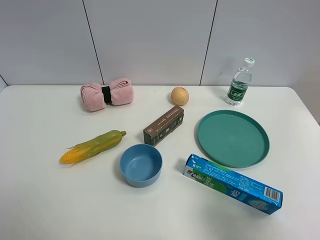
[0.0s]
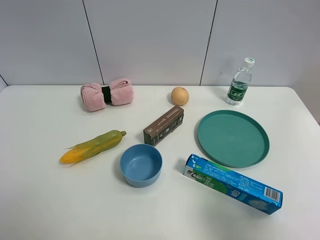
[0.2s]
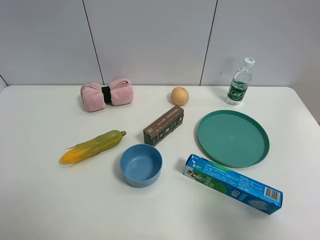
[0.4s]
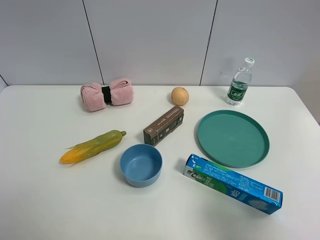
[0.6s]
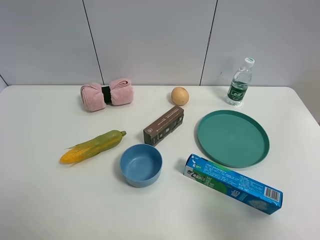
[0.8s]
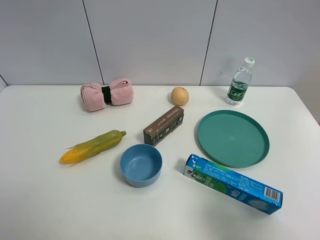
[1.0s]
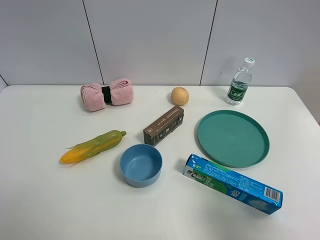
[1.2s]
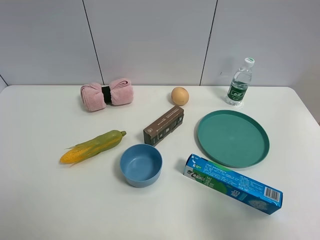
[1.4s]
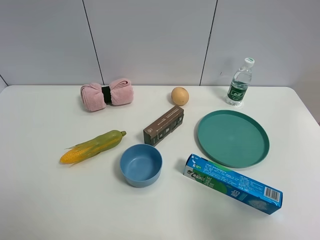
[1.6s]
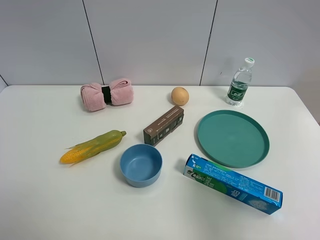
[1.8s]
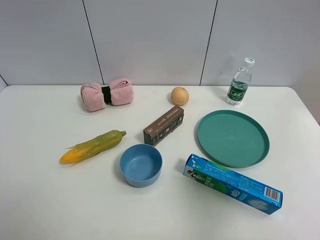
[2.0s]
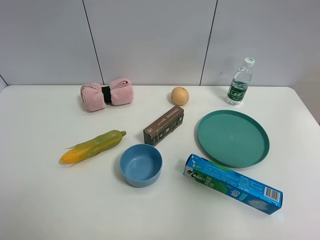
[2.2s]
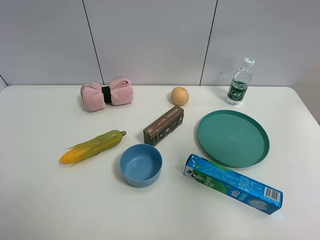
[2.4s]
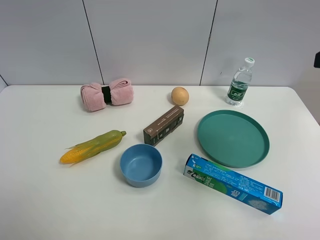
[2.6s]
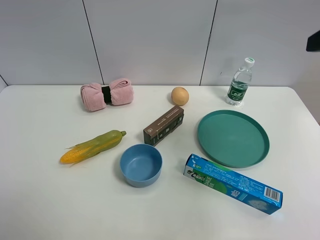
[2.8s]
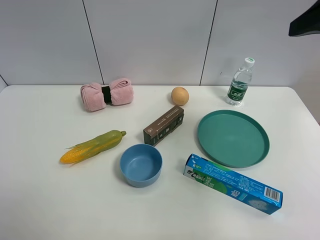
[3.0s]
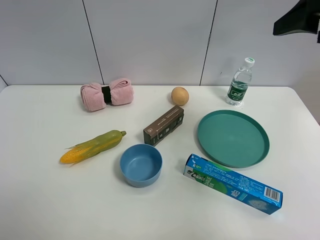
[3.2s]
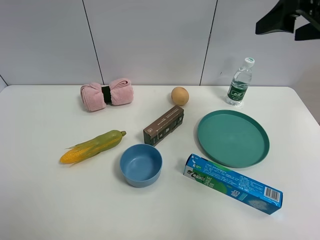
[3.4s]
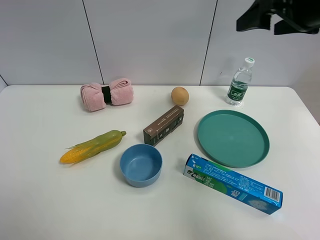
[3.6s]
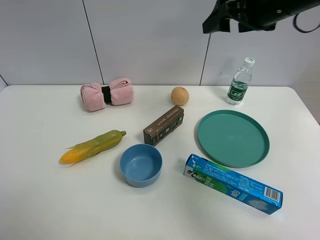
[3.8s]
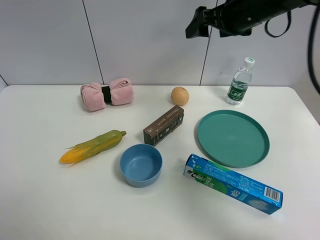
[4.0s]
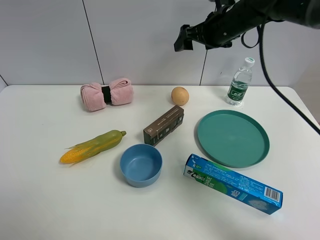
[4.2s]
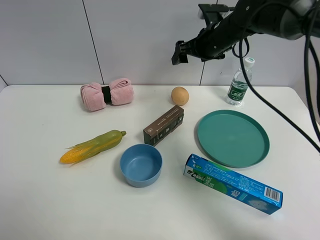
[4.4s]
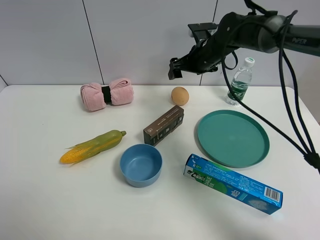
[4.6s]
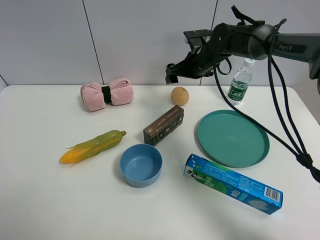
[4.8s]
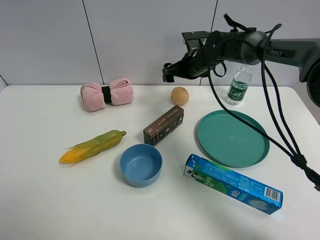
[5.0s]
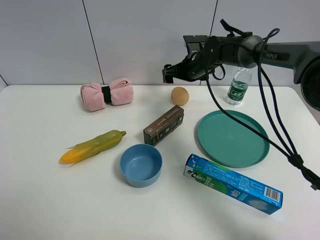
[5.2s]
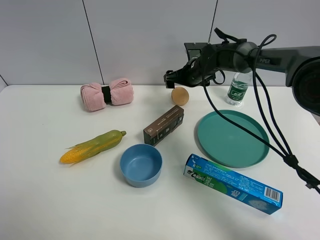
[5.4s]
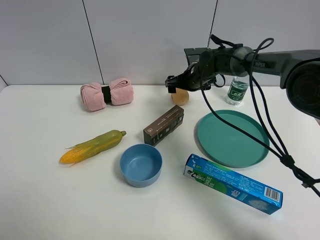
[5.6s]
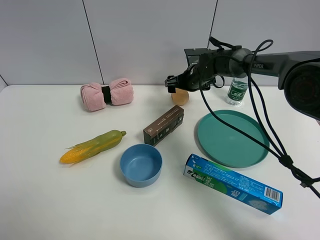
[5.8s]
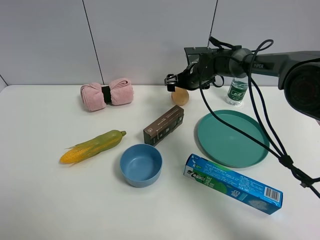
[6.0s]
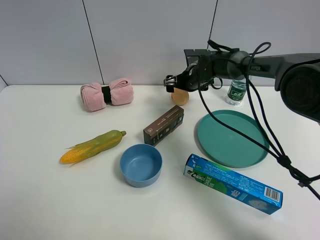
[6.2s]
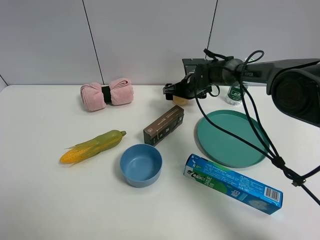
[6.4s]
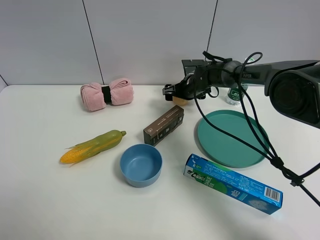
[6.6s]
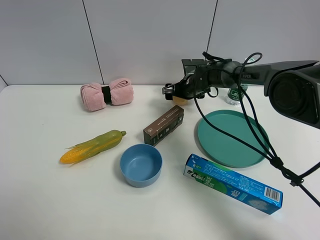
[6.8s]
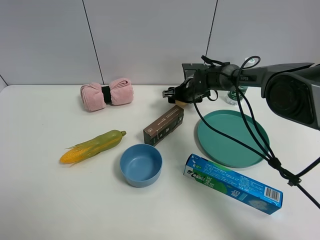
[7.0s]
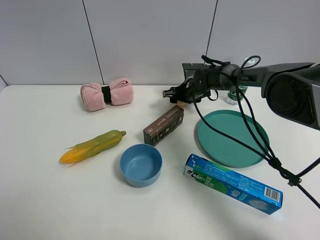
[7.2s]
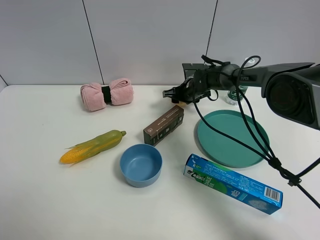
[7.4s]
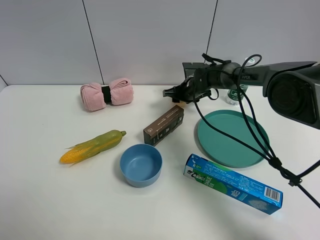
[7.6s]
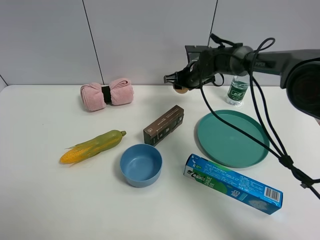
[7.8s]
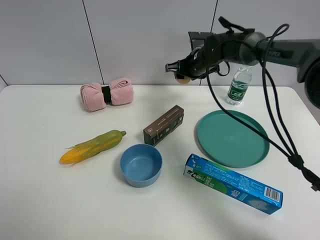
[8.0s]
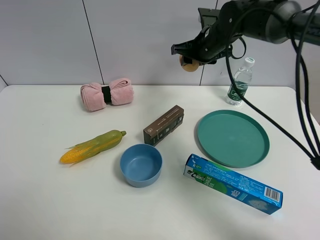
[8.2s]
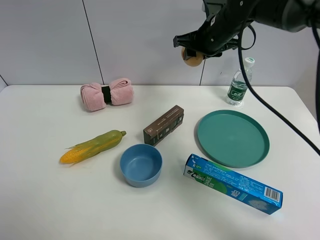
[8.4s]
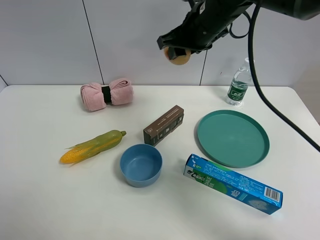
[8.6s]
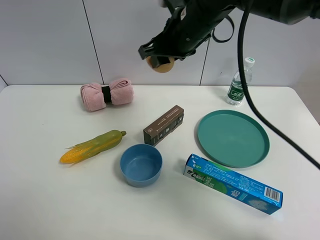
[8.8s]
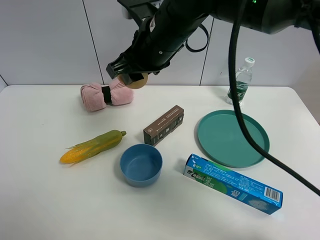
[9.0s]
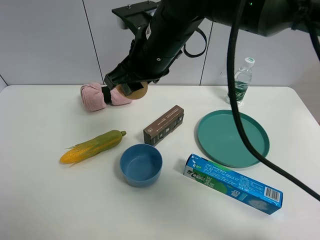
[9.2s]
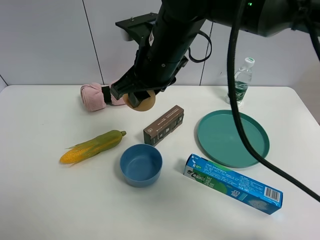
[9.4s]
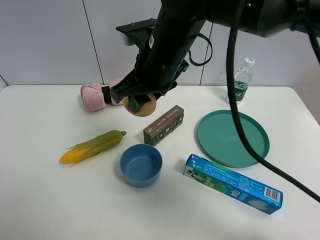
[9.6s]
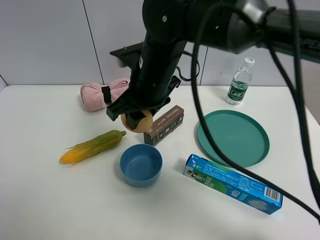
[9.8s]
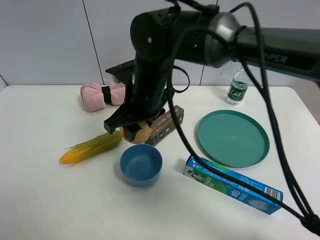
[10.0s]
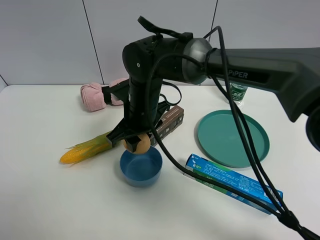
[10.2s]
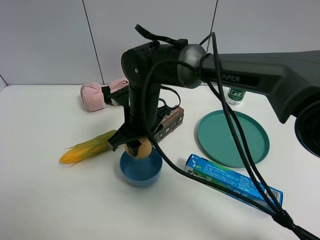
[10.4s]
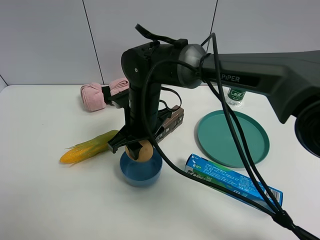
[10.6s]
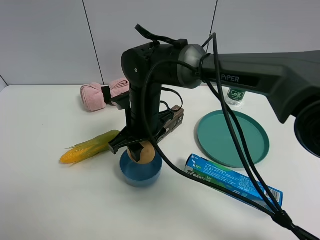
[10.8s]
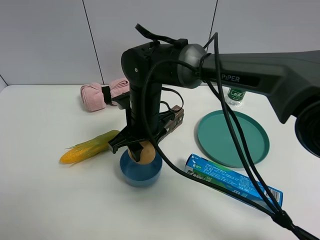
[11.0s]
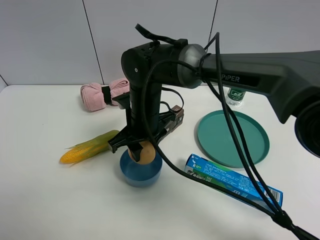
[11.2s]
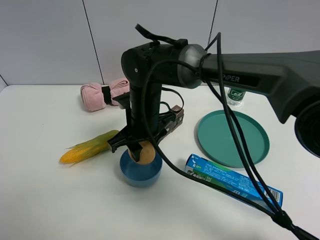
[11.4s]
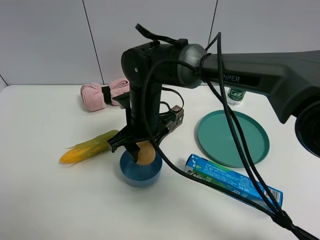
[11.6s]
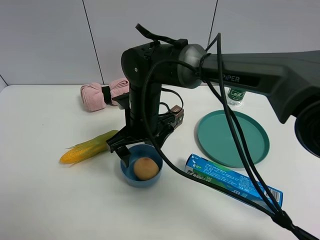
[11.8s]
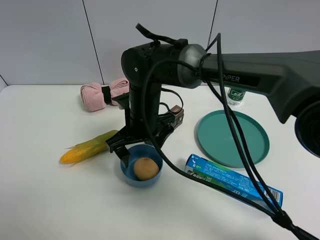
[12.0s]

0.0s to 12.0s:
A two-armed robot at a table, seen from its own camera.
Task of the whole recording: the gripper move the object.
Step, 0.0s to 7.4s: Grasp the egg yolk pastry with the right gripper.
Step, 7.6s to 11.8s: Place the egg yolk pastry into the blue bowl with the right gripper.
1.6s to 3.0s: The right gripper goes about 25 cm forward and upward.
3.0s to 4.4s: The right gripper heads forward, downward and to the left, covering roughly 30 cm.
4.4s to 6.0s: The right gripper goes roughly 10 cm downward.
6.0s to 7.6s: The right gripper closes its fingers.
7.6s to 9.0s: The right gripper is displaced upward, backward and to the left by about 30 cm.
9.0s to 10.4s: The right gripper travels downward by roughly 15 cm.
10.4s to 12.0s: The right gripper opens its fingers.

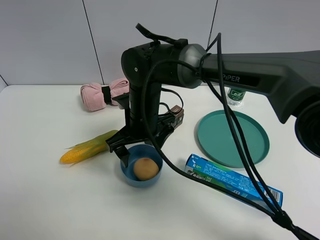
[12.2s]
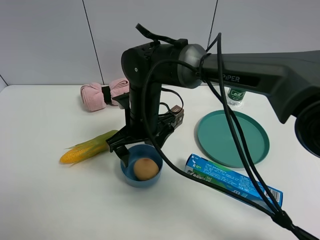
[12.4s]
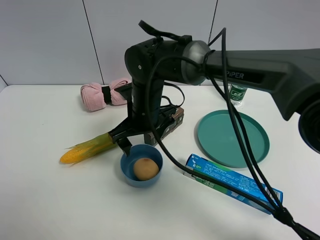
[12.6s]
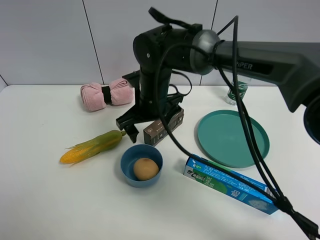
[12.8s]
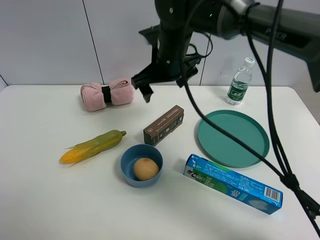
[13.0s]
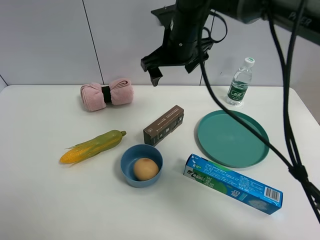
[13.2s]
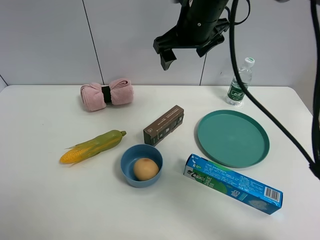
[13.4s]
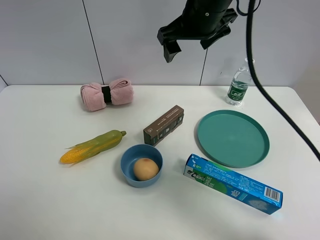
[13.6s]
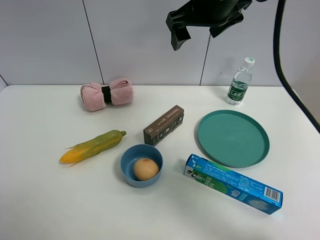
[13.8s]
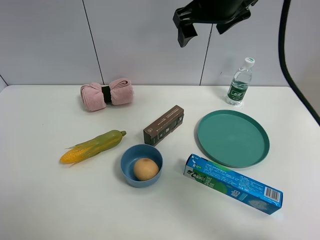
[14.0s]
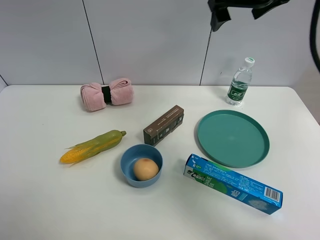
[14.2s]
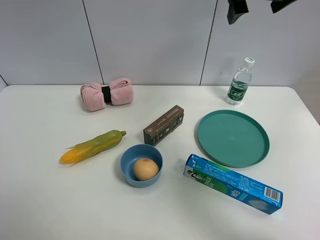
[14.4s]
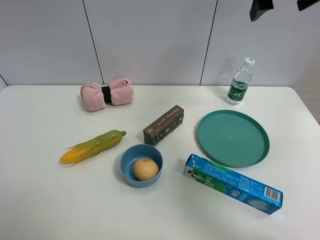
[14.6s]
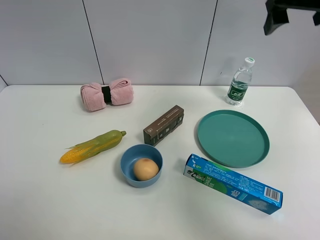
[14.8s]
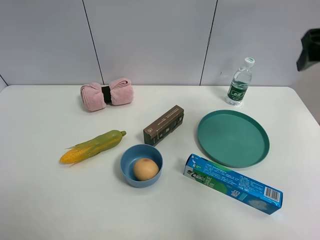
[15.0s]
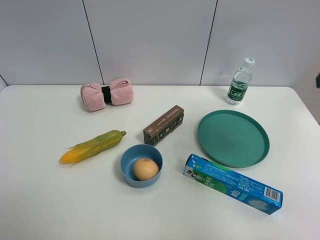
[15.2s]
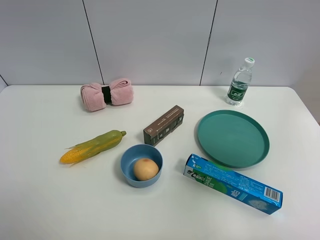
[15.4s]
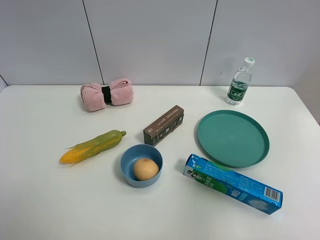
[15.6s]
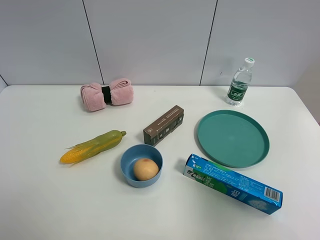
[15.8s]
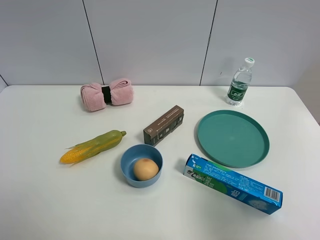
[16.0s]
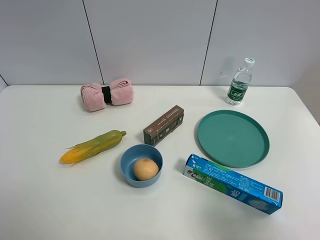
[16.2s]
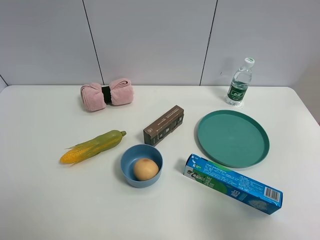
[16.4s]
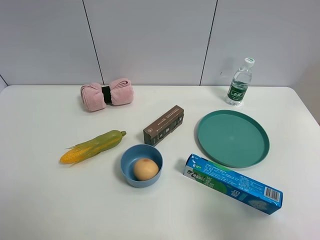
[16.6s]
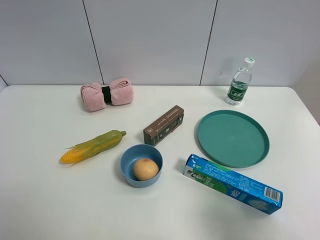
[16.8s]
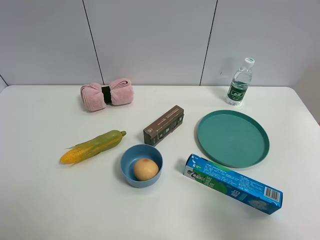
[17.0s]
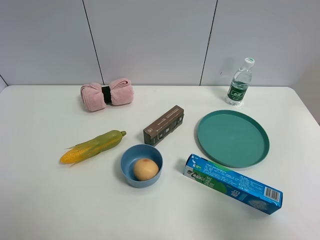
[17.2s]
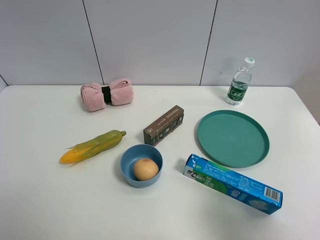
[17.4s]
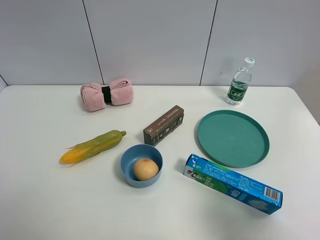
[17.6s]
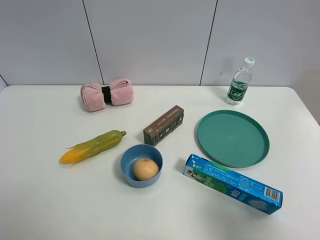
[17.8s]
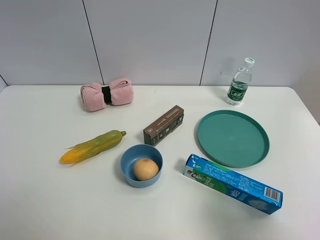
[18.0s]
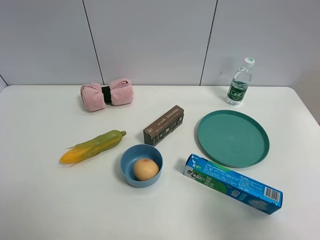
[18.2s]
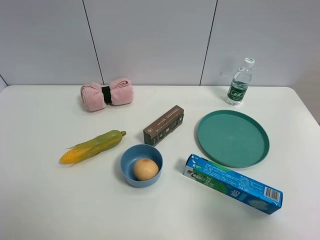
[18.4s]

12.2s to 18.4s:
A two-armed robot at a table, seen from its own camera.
Task of the whole recording: the gripper move the object.
12.2s to 13.8s: The right gripper goes roughly 25 cm upward and to the right.
13.8s to 15.4s: The right gripper shifts about 30 cm backward and to the right.
15.4s to 16.8s: The right gripper is displaced backward and downward by some 15 cm.
16.8s to 18.4s: Both grippers stay put.

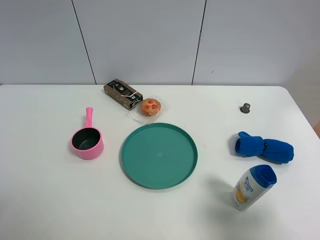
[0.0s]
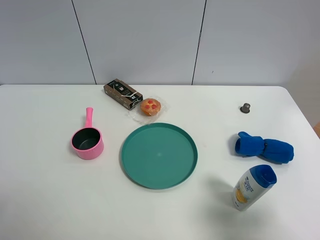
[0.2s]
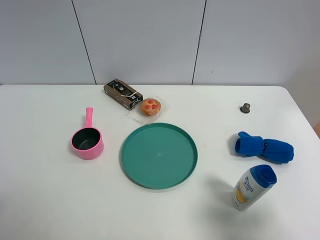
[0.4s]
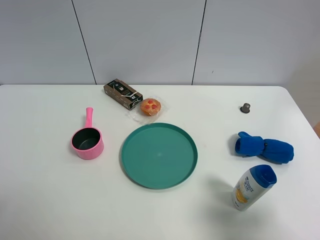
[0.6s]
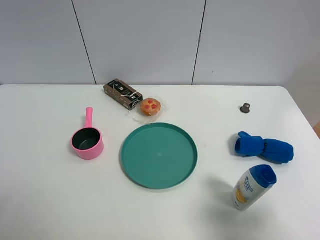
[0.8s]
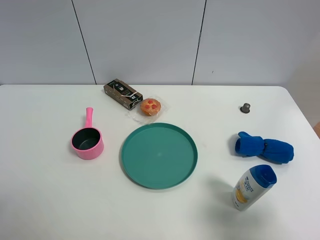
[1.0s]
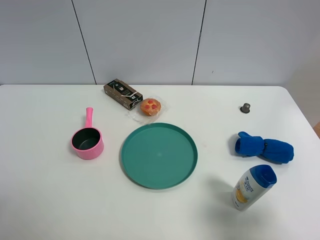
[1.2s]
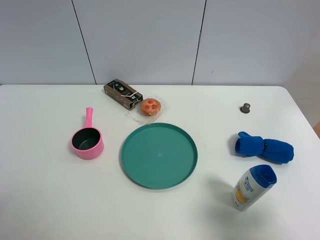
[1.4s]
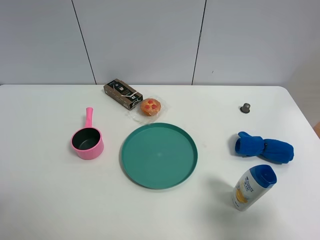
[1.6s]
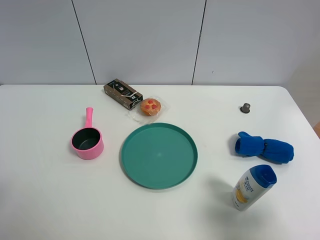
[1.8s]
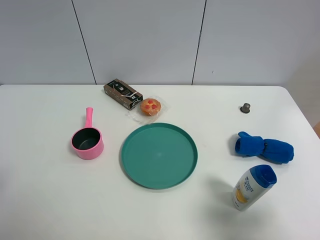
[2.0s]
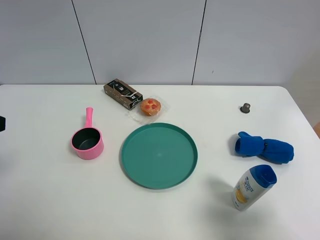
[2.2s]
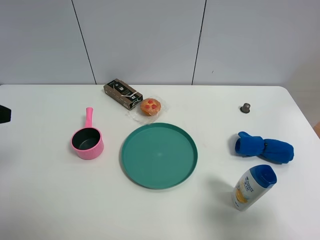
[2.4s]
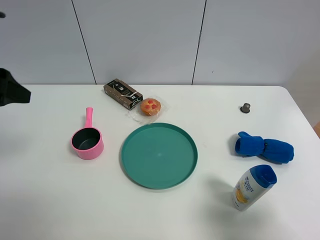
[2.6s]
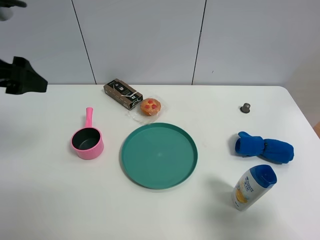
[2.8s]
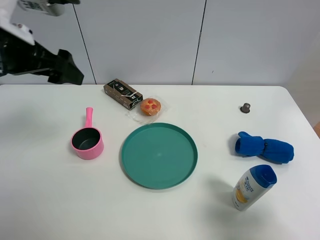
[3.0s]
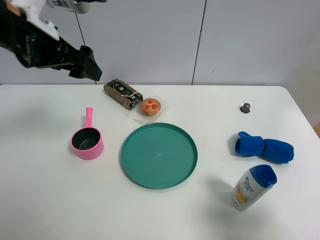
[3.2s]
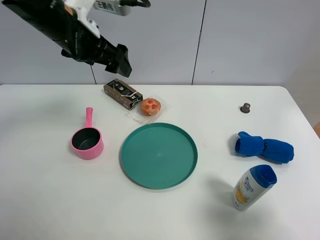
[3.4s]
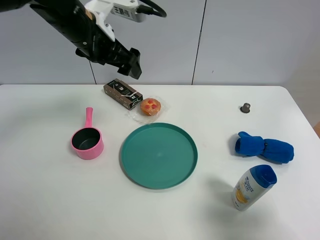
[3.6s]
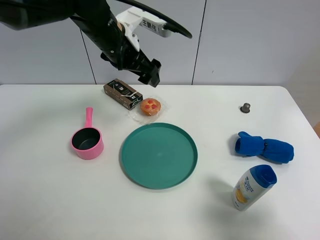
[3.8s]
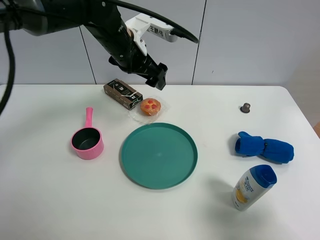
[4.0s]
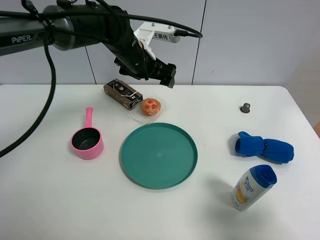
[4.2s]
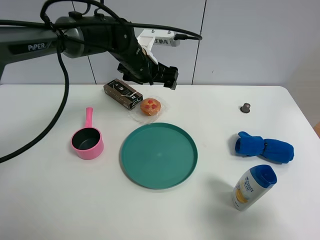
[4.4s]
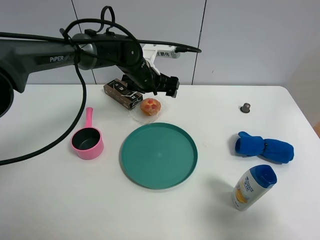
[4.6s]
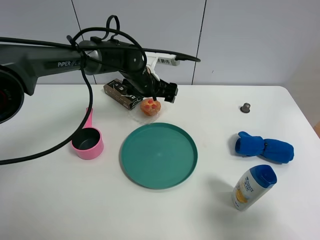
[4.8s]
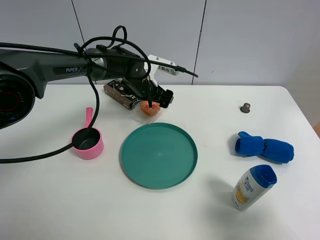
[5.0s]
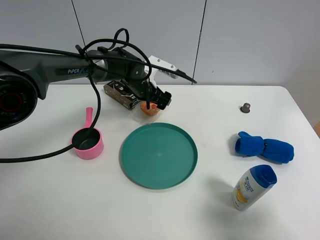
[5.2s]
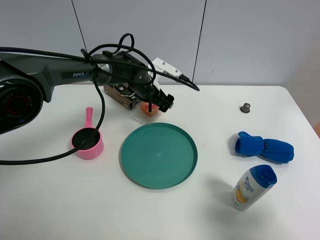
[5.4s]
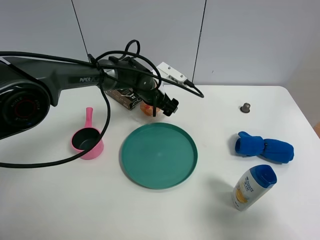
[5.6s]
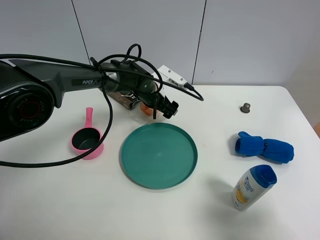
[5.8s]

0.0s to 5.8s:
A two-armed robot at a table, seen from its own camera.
Task of the whole recording: the gripper move the object.
0.0s to 1.4s: The two grippers keep their place.
1.4s to 2.8s: The left gripper shifts about 25 cm forward.
2.8s to 4.4s: The left gripper shifts about 30 cm to the right, forward and downward.
4.4s to 5.8s: The left gripper shifts approximately 10 cm downward.
